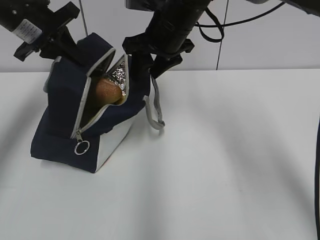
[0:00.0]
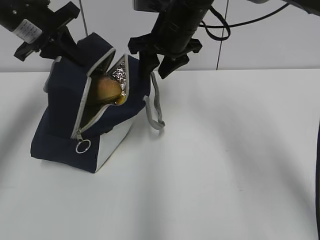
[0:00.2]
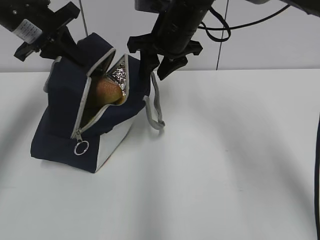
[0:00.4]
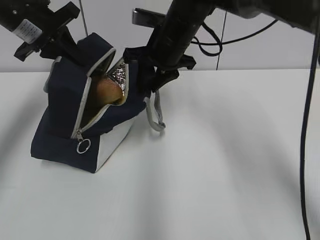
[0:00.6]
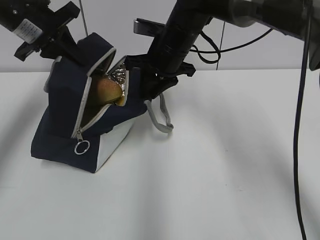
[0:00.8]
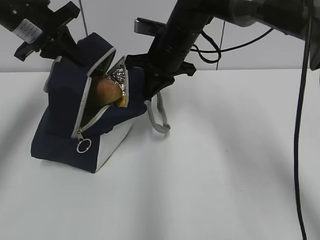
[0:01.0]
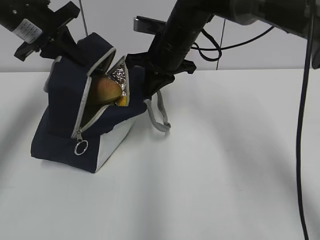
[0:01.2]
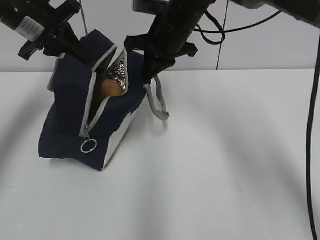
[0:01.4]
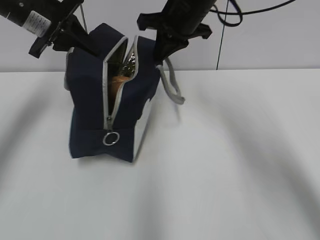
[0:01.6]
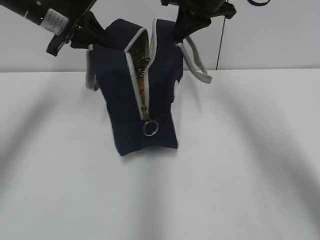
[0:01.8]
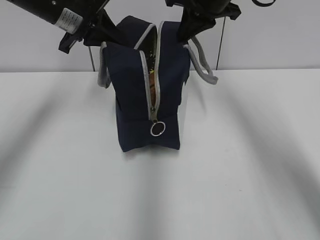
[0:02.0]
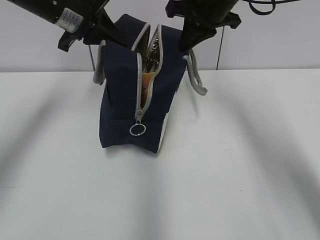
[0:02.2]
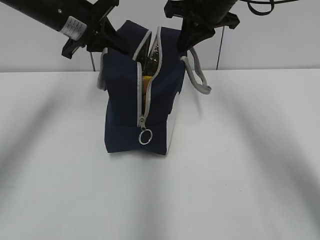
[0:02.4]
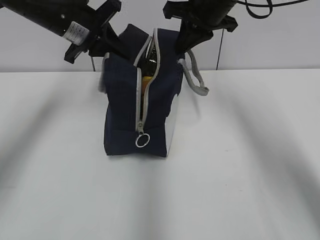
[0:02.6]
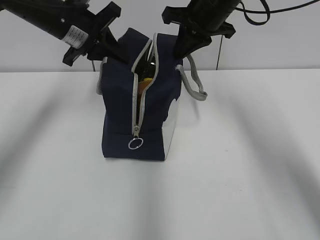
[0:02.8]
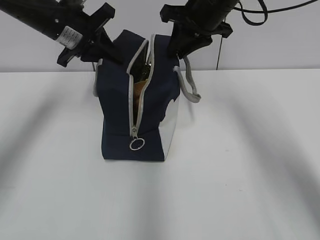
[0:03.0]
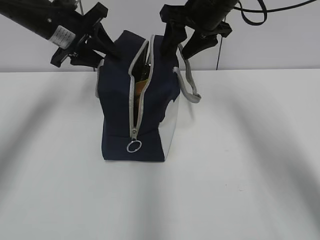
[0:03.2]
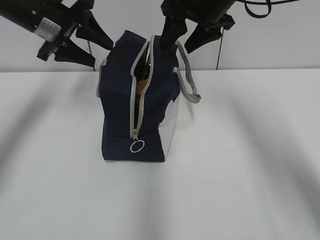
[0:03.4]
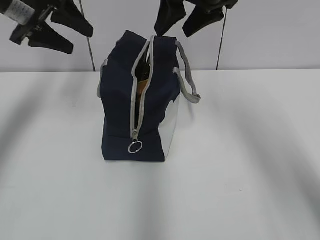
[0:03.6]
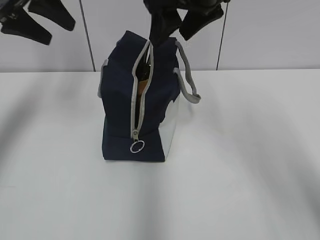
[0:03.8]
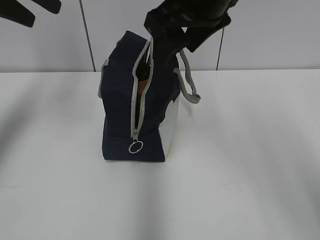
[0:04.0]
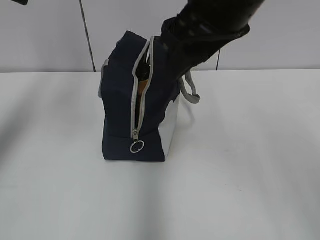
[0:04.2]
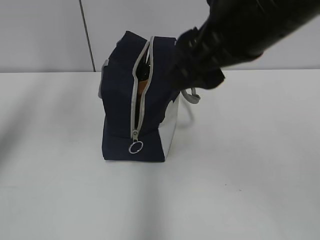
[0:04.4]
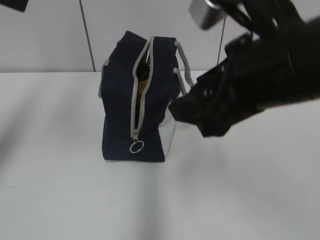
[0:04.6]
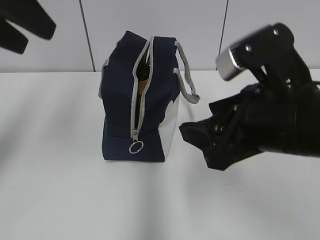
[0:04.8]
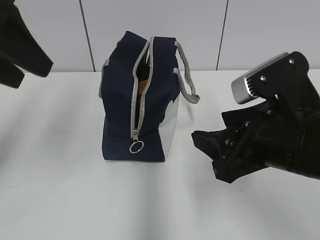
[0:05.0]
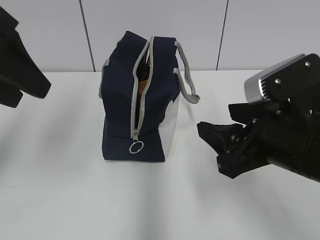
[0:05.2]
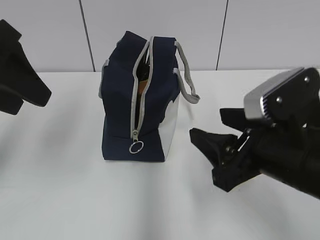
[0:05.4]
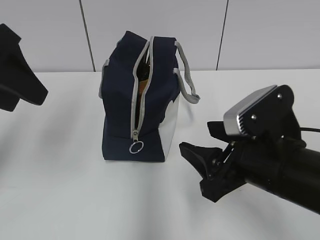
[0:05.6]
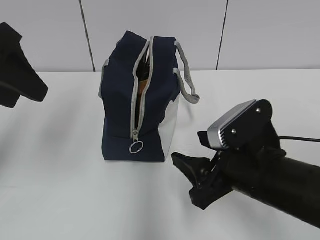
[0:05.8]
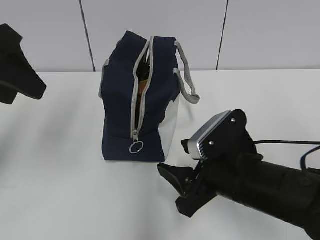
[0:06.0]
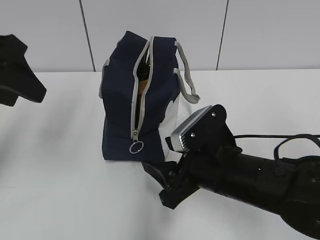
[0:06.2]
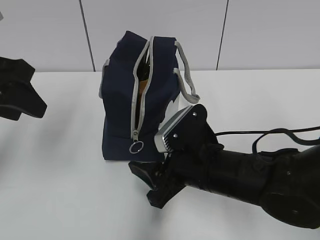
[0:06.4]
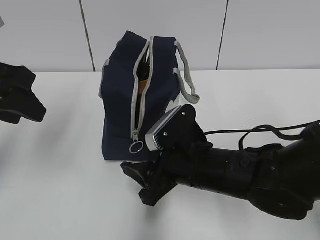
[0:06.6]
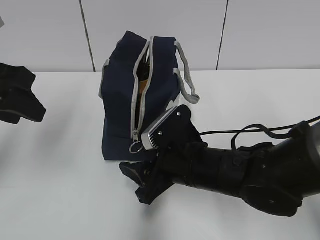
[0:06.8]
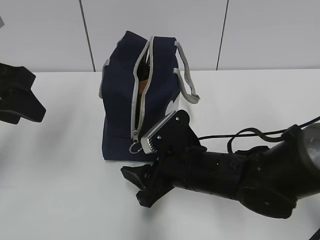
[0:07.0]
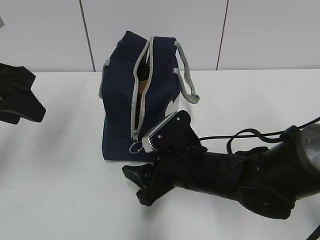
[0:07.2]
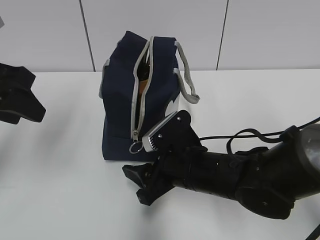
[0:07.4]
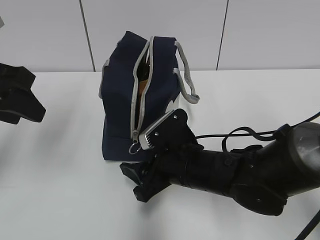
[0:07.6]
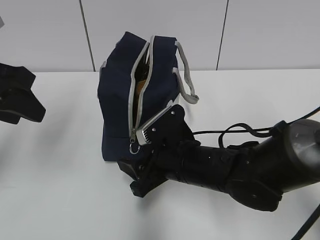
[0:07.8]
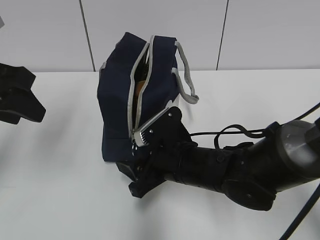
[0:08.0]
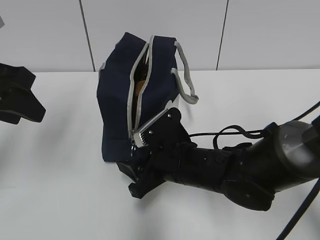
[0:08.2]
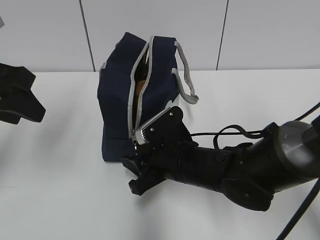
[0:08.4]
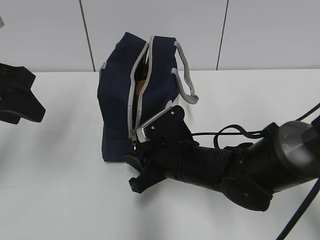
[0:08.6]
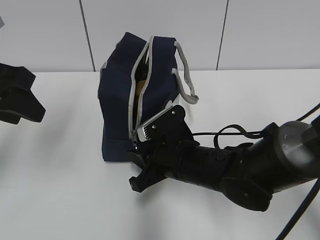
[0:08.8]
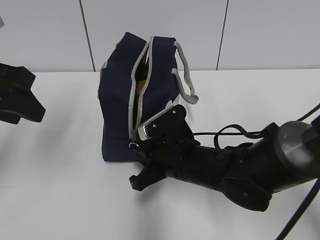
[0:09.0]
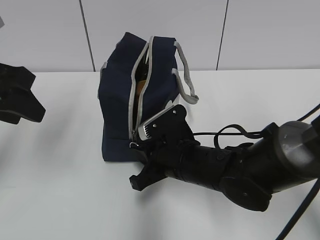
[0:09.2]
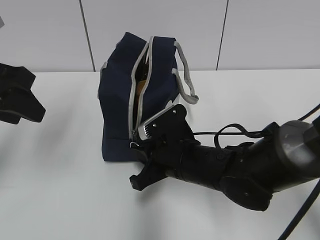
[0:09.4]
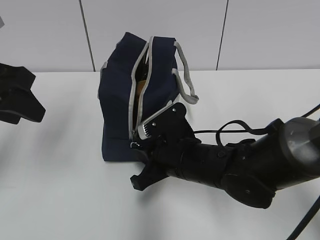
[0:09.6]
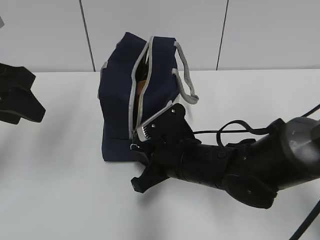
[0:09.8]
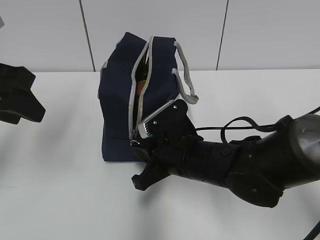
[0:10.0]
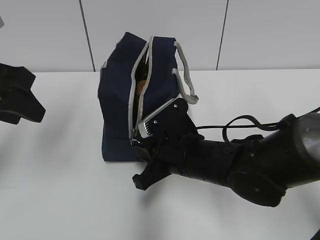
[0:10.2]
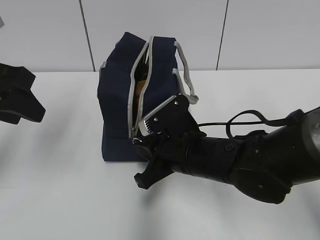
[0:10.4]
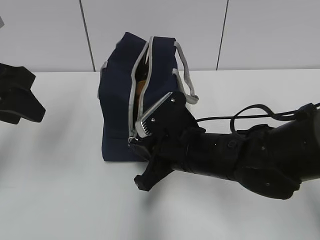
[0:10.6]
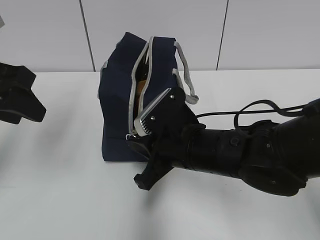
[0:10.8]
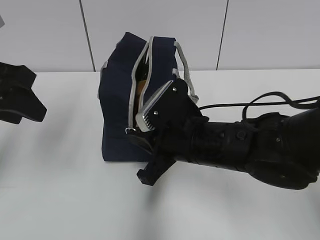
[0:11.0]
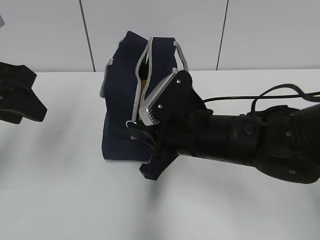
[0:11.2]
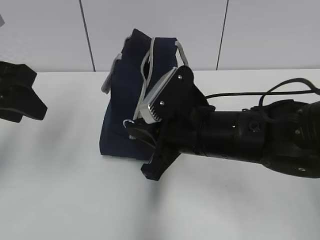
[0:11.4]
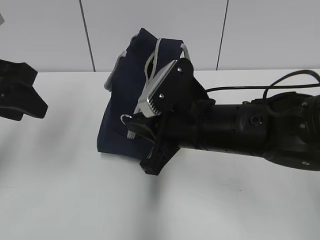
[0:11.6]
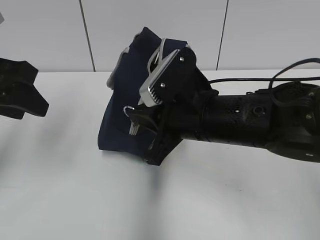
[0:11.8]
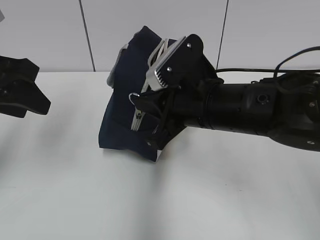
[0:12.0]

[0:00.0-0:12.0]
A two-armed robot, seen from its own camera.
0:00.0 to 0:01.6: The right gripper changes place by approximately 5 cm, and closes its fingers.
0:01.6 to 0:03.0: The right gripper opens up.
0:03.0 to 0:04.4: The left gripper shifts approximately 20 cm upward and backward, and opens, while the right gripper moves backward, about 20 cm, and opens.
0:04.4 to 0:06.0: The right gripper is displaced downward by some 20 cm, while the left gripper heads downward, covering some 10 cm.
0:06.0 to 0:07.6: The right gripper heads to the left and forward, covering approximately 10 cm.
0:07.6 to 0:09.0: The right gripper closes up.
0:09.0 to 0:10.4: The grippers move only a little.
0:10.4 to 0:12.0: The right gripper travels upward by about 10 cm.

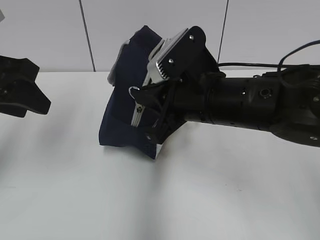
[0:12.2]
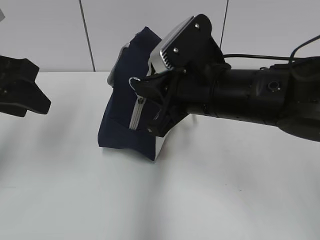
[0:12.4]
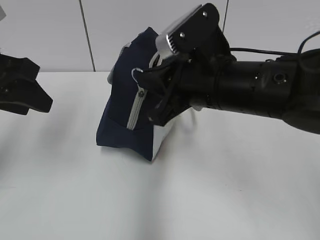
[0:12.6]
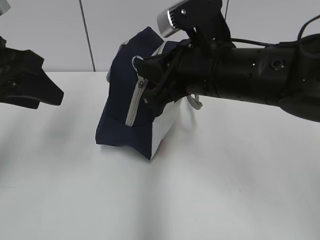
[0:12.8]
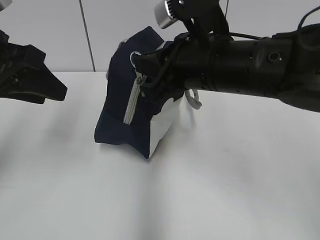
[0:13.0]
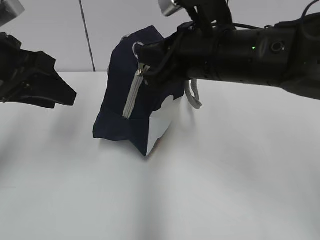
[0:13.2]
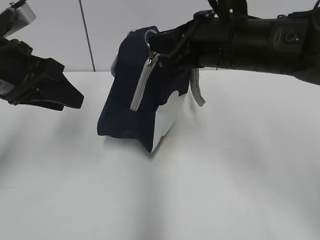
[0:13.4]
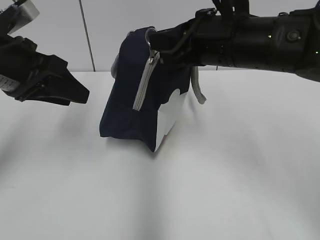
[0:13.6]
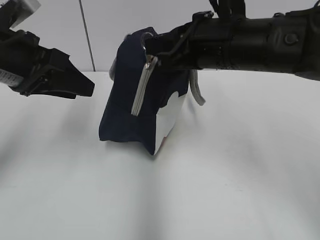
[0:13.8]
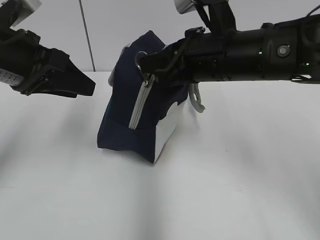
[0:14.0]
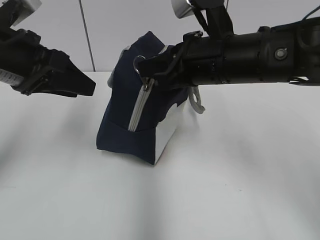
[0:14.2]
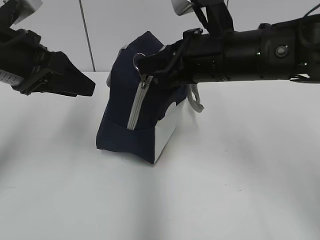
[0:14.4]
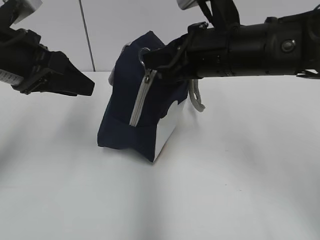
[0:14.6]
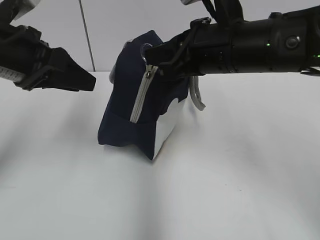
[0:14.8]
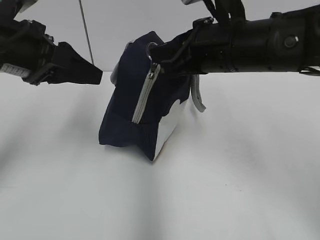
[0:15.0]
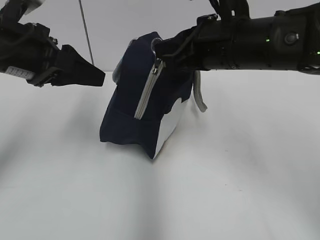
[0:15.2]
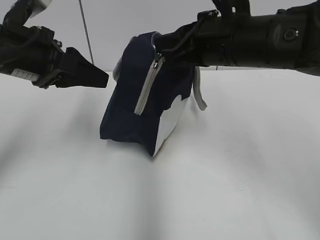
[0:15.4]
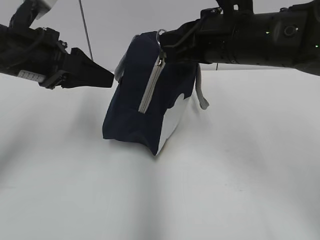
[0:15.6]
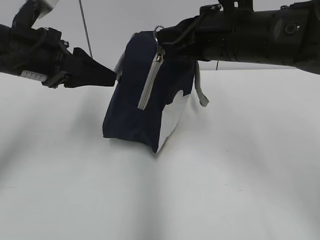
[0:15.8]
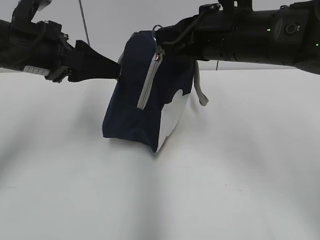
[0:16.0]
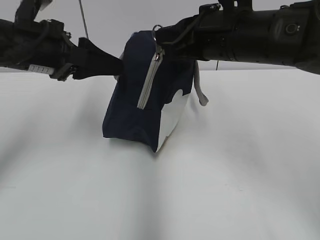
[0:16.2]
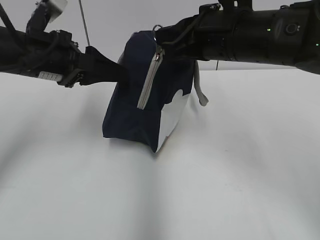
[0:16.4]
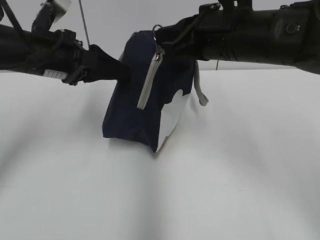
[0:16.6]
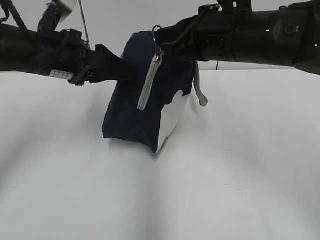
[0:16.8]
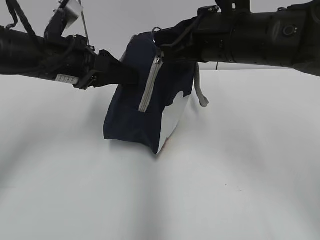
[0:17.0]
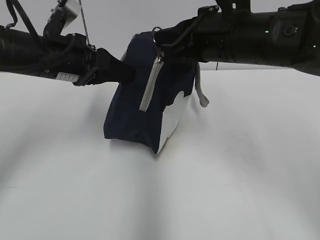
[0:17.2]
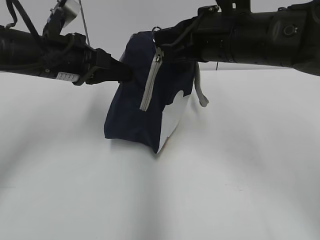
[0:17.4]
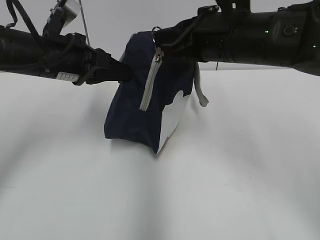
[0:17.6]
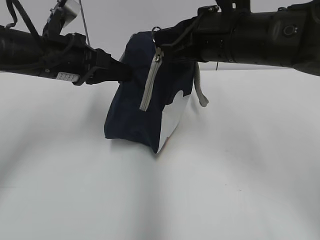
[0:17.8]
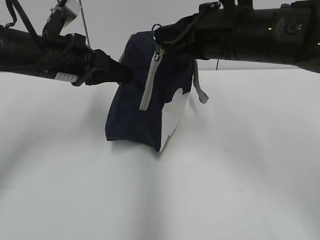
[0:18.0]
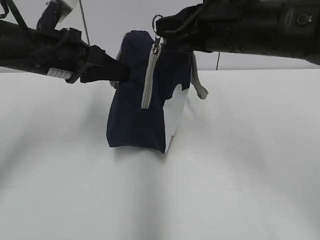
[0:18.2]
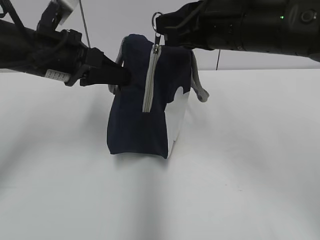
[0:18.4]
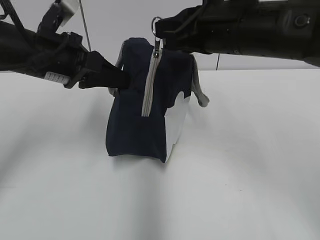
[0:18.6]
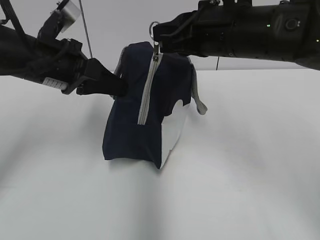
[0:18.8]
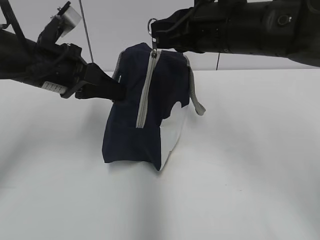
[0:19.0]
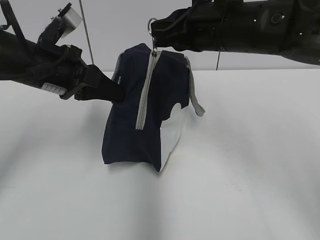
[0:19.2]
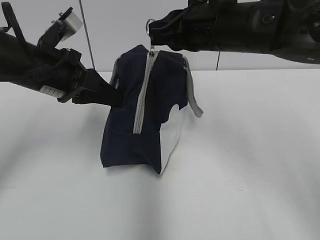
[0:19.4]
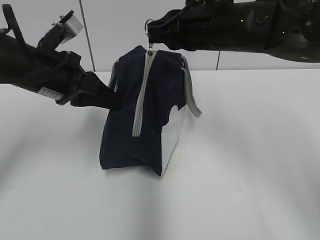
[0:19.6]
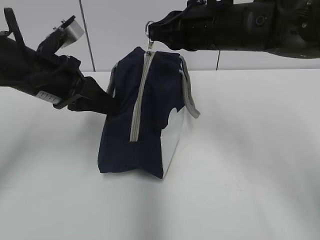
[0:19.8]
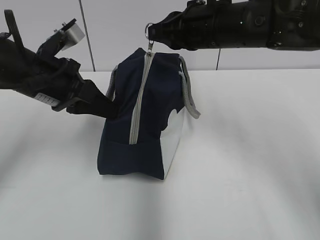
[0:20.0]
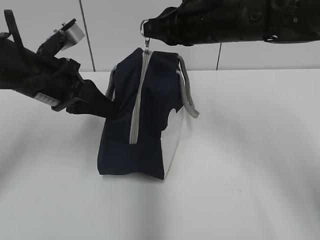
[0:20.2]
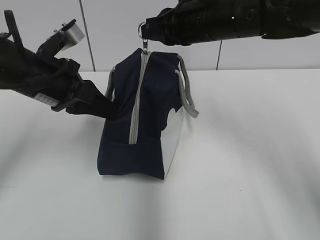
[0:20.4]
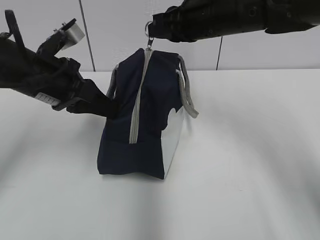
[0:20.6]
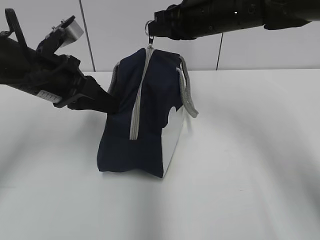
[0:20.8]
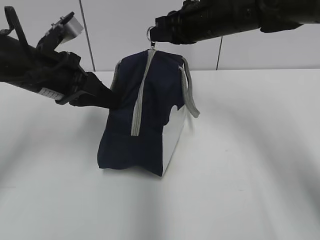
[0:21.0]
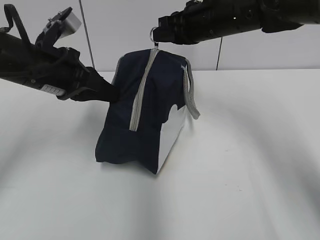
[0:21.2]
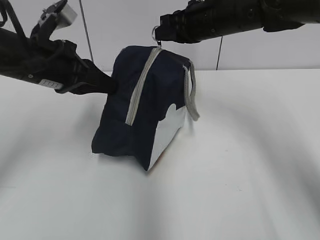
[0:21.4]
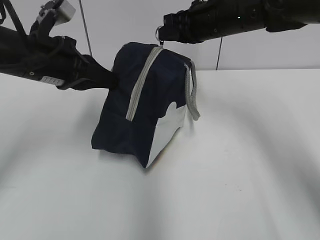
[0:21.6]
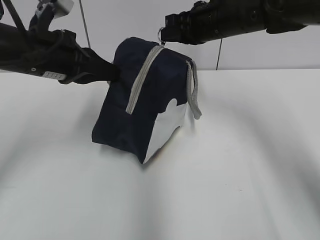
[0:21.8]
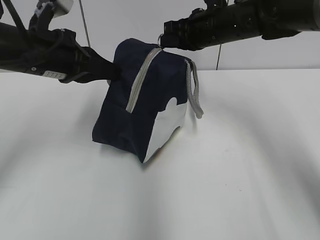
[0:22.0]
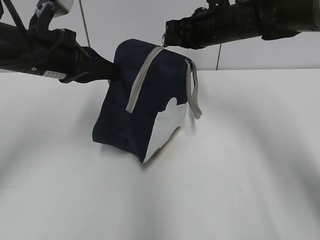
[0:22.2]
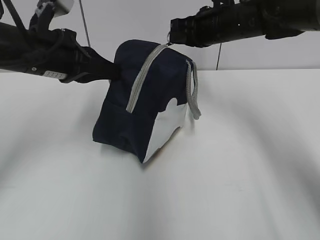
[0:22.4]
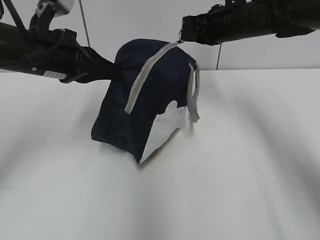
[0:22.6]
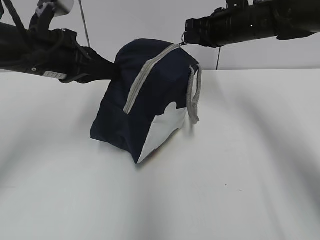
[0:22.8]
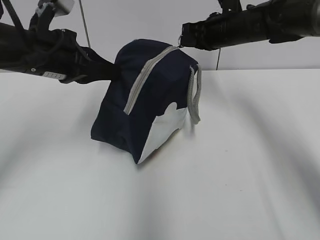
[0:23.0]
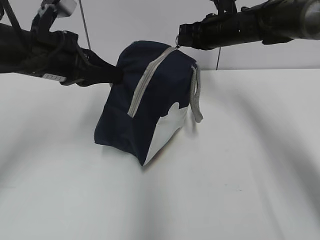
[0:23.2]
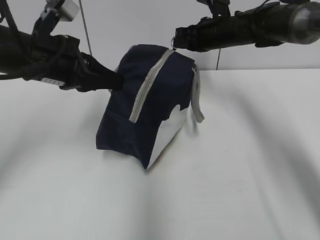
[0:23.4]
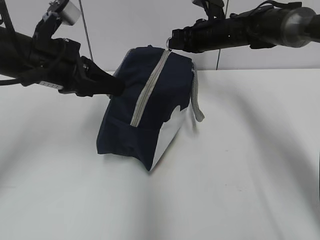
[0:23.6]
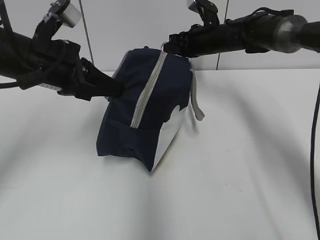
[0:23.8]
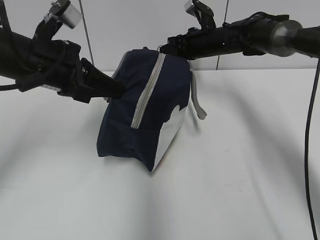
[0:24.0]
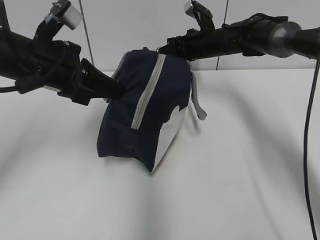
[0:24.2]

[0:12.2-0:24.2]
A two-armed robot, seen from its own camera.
0:12.2 to 0:13.8: The right gripper travels upward by some 5 cm.
0:13.8 to 0:15.2: There are only small adjustments of the grippers.
0:15.2 to 0:16.6: The left gripper shifts by about 5 cm.
0:16.6 to 0:18.2: The left gripper closes up.
0:18.2 to 0:19.8: The right gripper heads forward, covering approximately 5 cm.
0:19.8 to 0:21.2: The right gripper heads forward, covering some 10 cm.
0:21.2 to 0:22.6: The right gripper shifts by approximately 5 cm.
0:22.6 to 0:24.2: The right gripper is displaced forward and downward by about 10 cm.
